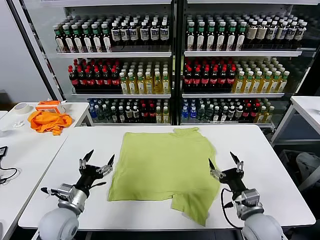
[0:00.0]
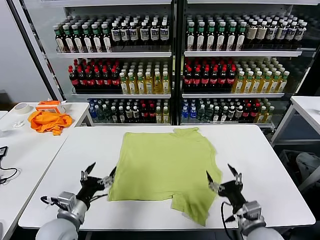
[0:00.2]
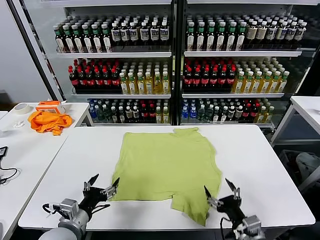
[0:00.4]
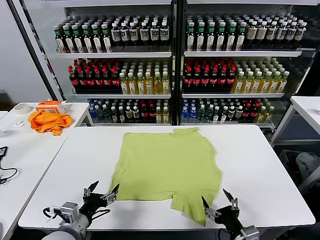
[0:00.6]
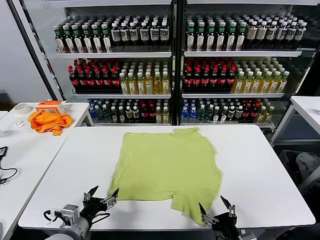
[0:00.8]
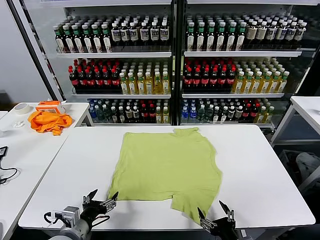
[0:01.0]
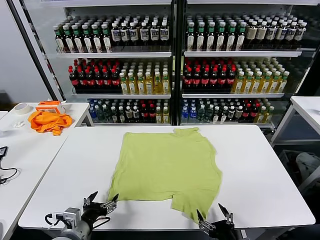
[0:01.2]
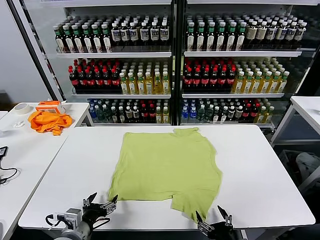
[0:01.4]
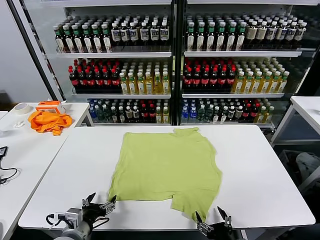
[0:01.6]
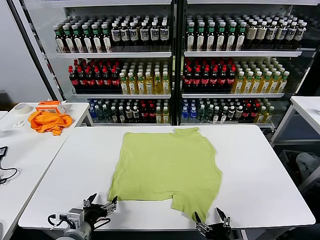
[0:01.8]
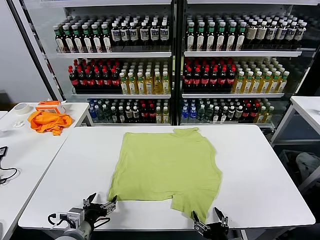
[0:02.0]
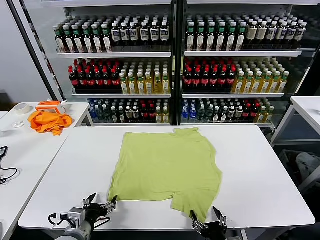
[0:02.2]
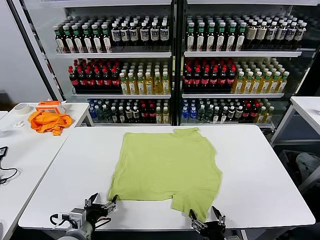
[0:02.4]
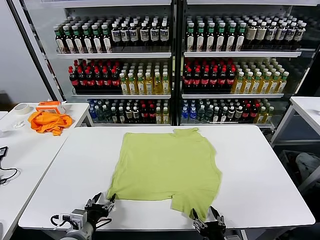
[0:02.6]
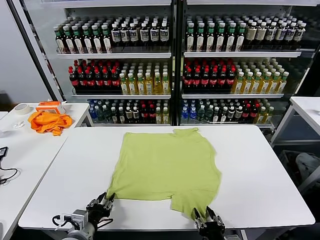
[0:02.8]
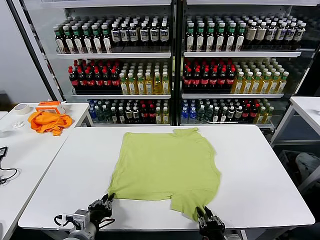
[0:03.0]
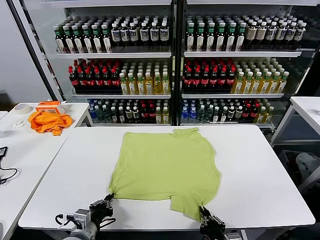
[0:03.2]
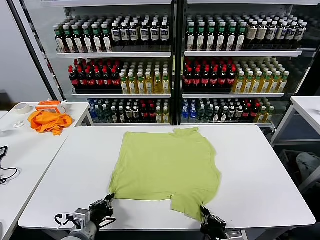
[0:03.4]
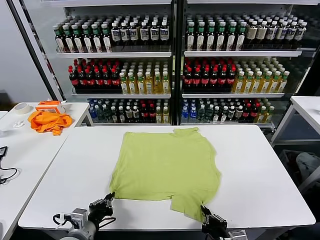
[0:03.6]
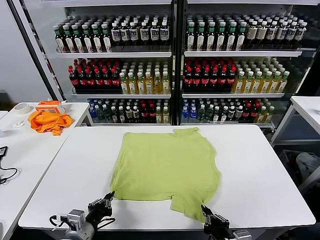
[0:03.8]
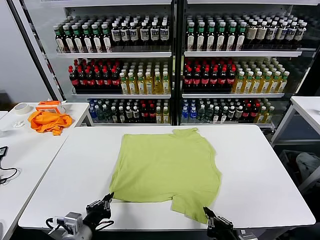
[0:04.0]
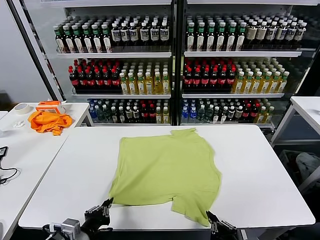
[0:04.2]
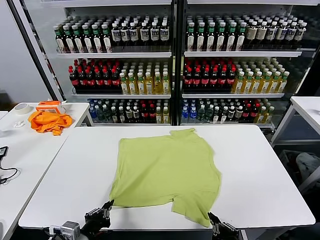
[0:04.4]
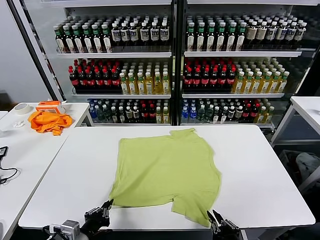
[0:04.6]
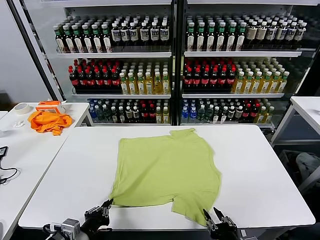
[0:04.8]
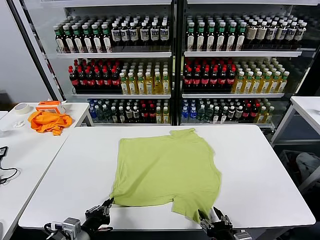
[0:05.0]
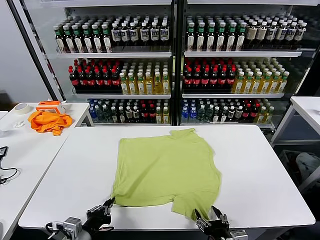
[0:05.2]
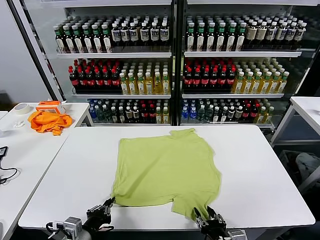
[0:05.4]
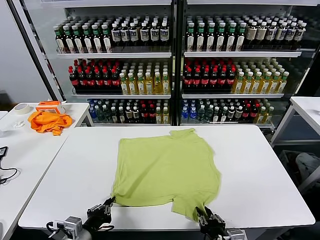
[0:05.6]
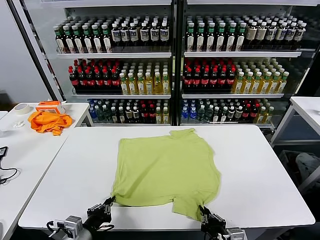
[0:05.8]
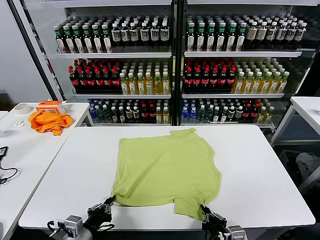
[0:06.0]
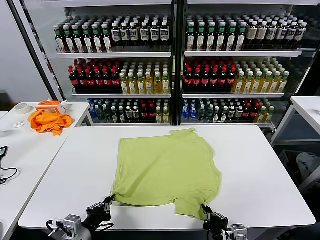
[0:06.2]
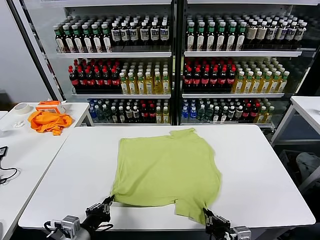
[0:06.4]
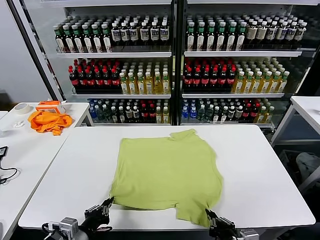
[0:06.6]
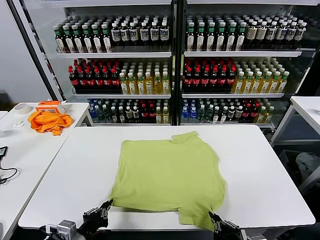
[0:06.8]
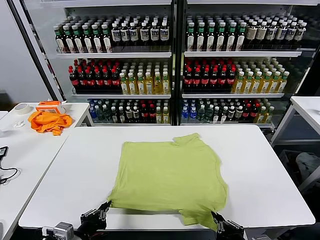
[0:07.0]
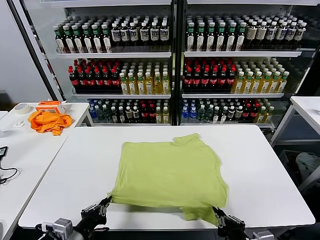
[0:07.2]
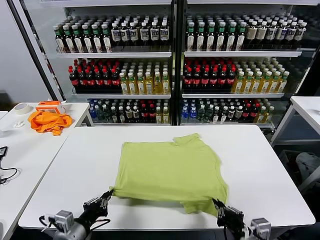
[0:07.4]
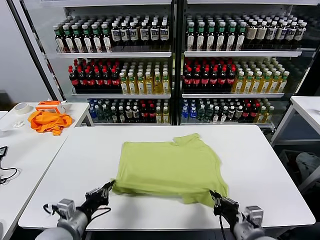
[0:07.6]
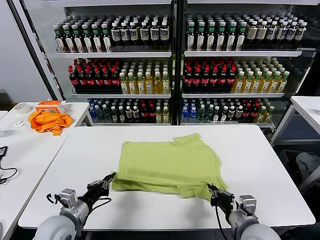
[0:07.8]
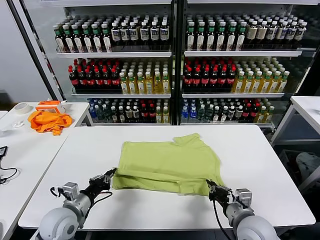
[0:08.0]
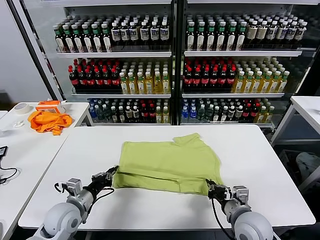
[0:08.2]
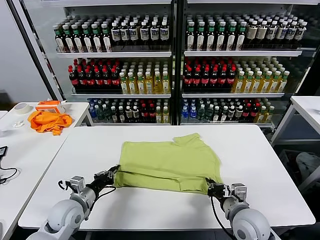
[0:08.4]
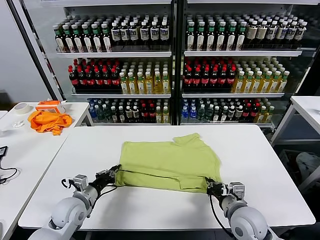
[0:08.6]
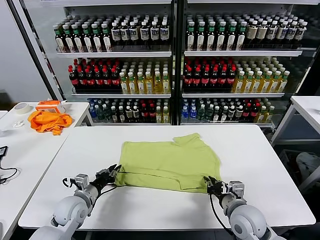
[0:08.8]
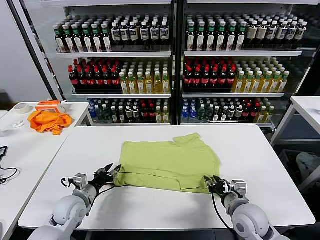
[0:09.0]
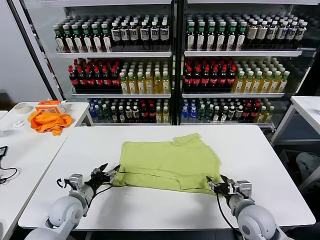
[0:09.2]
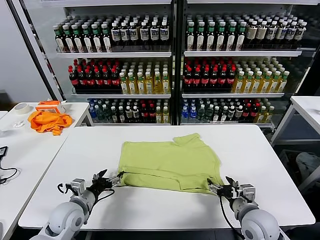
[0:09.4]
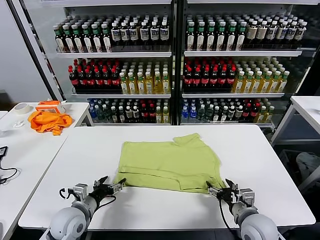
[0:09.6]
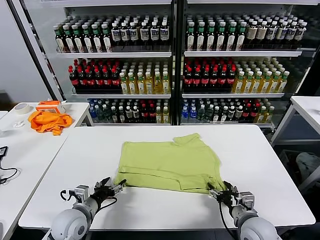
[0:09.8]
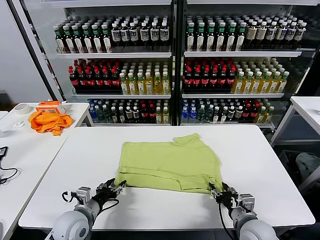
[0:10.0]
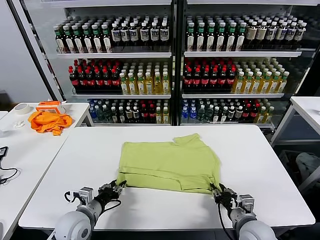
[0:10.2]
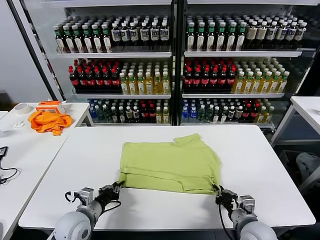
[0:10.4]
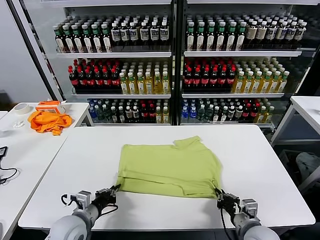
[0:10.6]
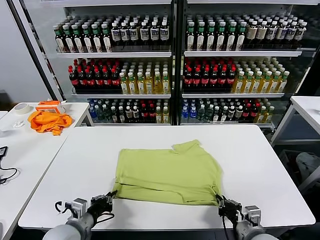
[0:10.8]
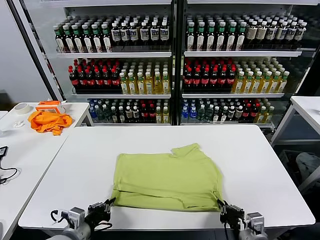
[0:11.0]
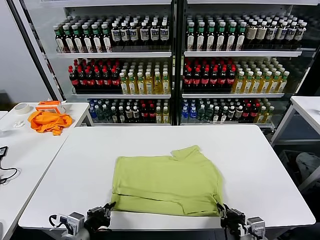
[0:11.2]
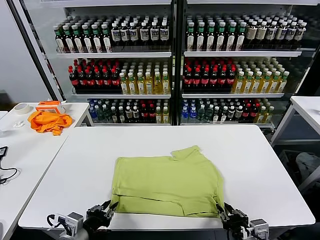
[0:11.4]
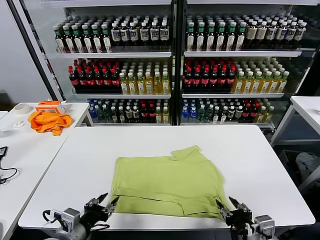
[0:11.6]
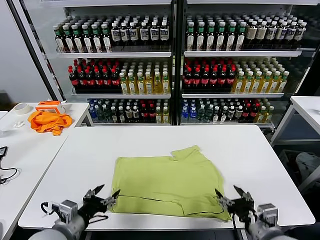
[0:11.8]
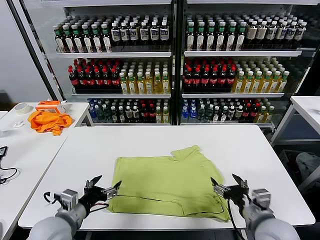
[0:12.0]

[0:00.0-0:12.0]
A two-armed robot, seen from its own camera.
Task of the whole recording: fold and organize the clothes.
Step, 0:00.0 to 0:03.0: use both grippers simultaneously to clamp the lower edge of the clothing fabric.
Step, 0:03.2 to 0:09.0: use both grippers to drag the lower edge of the fabric forward and fold it over the upper edge.
Step, 0:09.2 to 0:11.4: Drag the clothes downward with both gripper.
0:01.6 to 0:03.0: The right gripper closes its fingers; the left gripper closes.
0:03.0 to 0:04.4: The left gripper moves about 5 cm; the right gripper moves upward, about 5 cm.
0:04.4 to 0:06.0: The right gripper ends up roughly 5 cm from where it was, and opens and closes again.
0:06.0 to 0:07.6: The left gripper shifts approximately 5 cm forward. The right gripper travels upward and forward by some 10 cm.
0:07.6 to 0:09.0: The left gripper heads forward and downward, covering some 10 cm, and opens up, while the right gripper goes some 5 cm forward, and opens up.
0:09.0 to 0:10.4: The left gripper heads backward, covering approximately 5 cm, and closes up; the right gripper changes place by approximately 5 cm, and closes.
0:10.4 to 0:12.0: The two grippers go roughly 5 cm upward. The left gripper travels backward and back again, some 10 cm each way, and opens. Meanwhile the right gripper opens up.

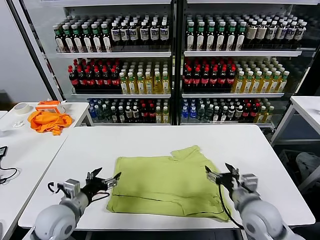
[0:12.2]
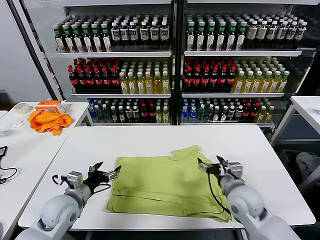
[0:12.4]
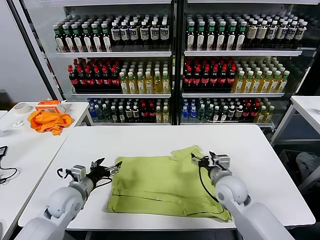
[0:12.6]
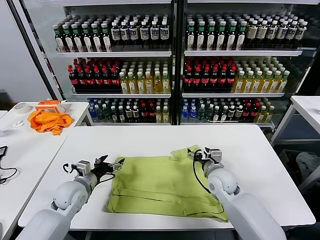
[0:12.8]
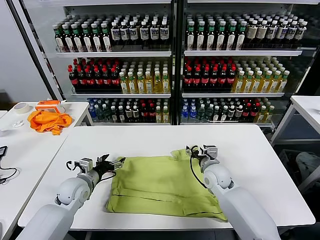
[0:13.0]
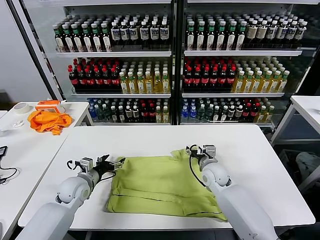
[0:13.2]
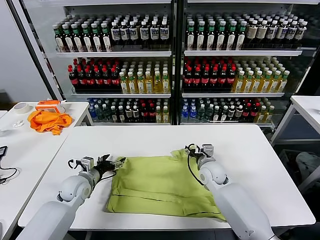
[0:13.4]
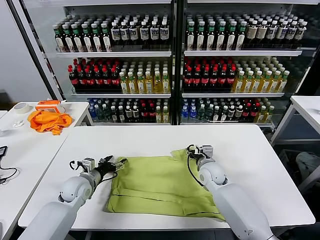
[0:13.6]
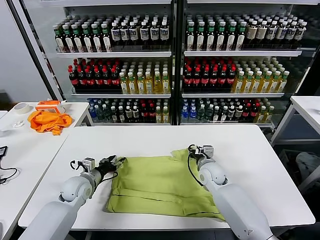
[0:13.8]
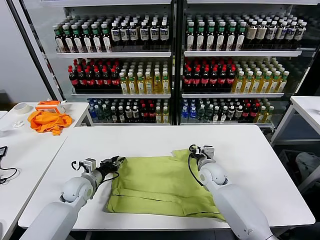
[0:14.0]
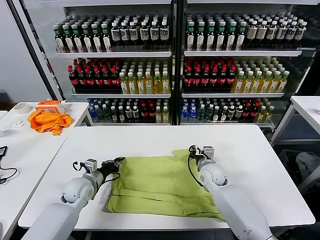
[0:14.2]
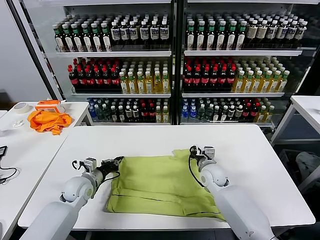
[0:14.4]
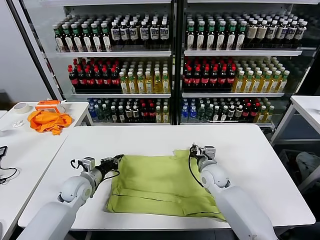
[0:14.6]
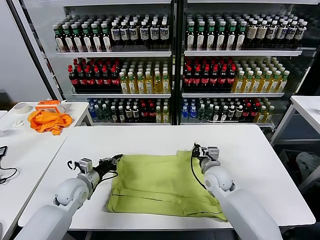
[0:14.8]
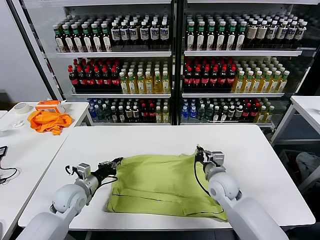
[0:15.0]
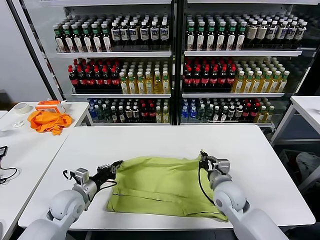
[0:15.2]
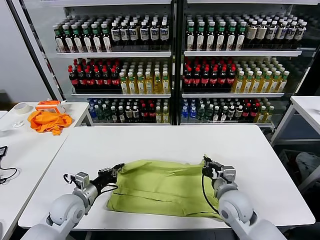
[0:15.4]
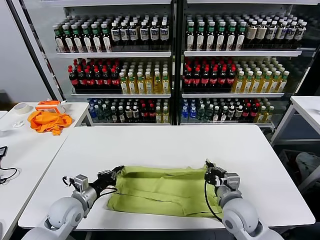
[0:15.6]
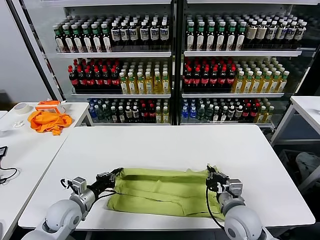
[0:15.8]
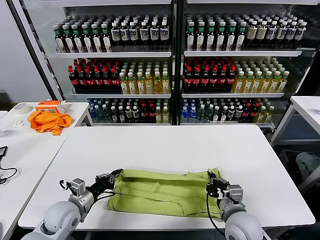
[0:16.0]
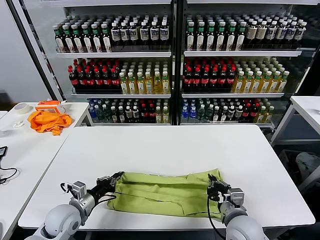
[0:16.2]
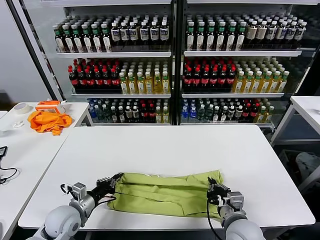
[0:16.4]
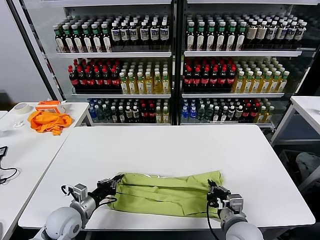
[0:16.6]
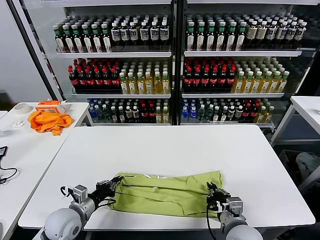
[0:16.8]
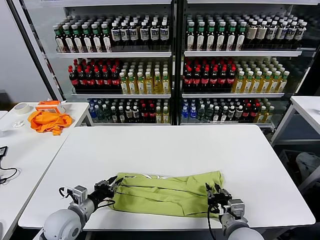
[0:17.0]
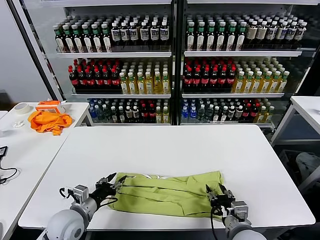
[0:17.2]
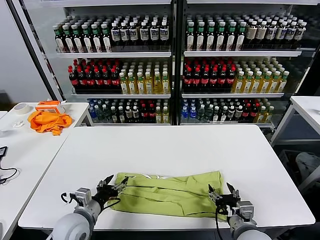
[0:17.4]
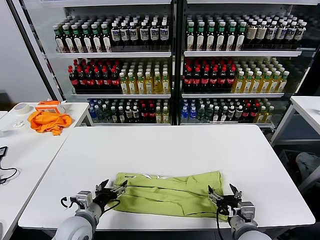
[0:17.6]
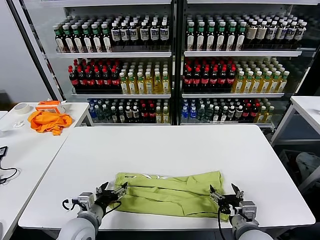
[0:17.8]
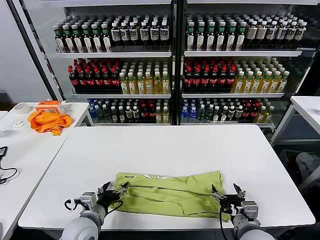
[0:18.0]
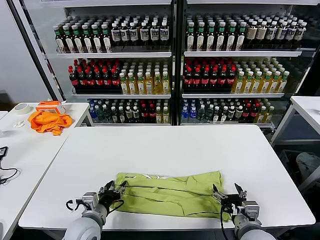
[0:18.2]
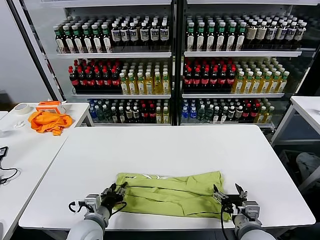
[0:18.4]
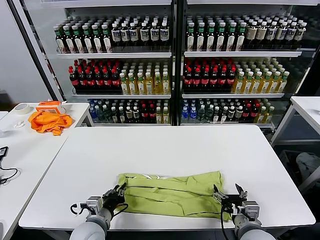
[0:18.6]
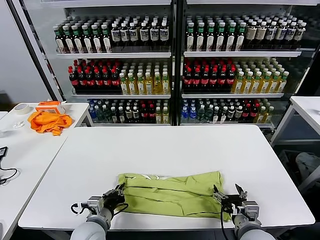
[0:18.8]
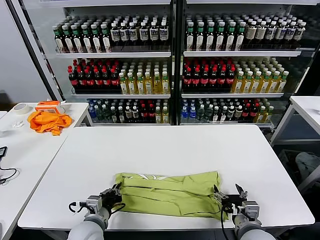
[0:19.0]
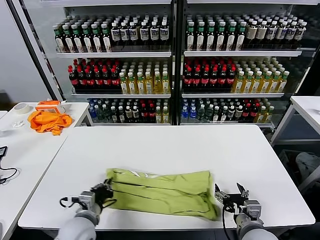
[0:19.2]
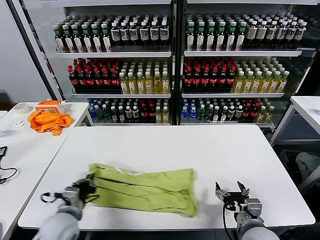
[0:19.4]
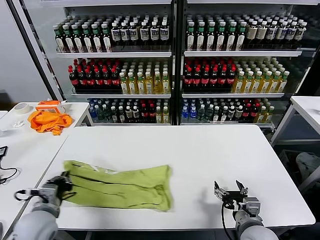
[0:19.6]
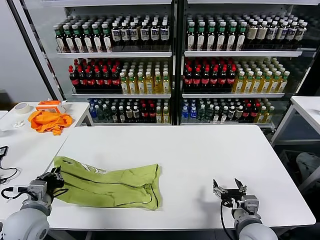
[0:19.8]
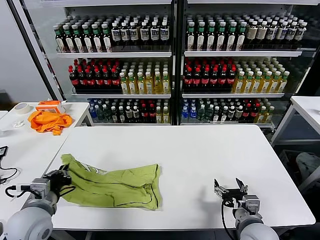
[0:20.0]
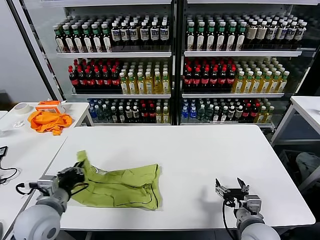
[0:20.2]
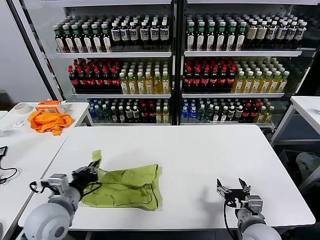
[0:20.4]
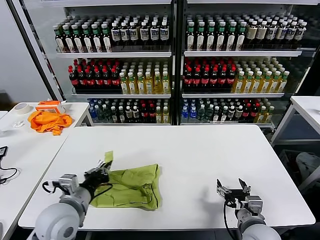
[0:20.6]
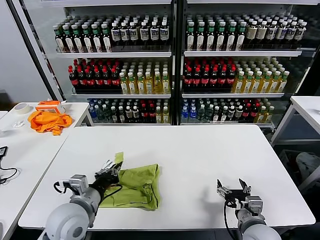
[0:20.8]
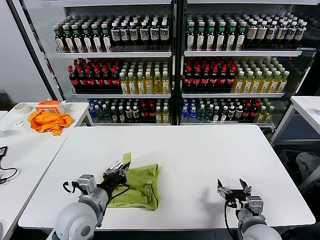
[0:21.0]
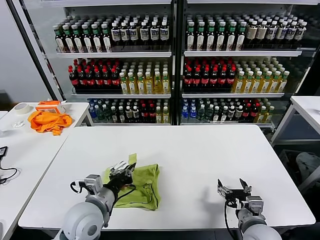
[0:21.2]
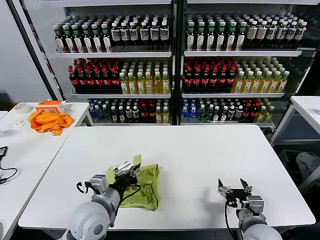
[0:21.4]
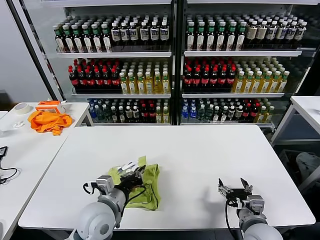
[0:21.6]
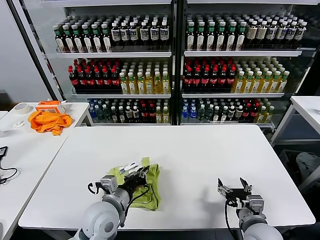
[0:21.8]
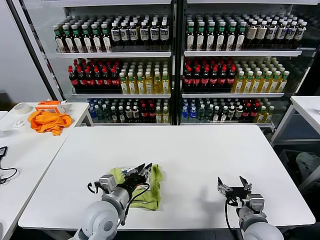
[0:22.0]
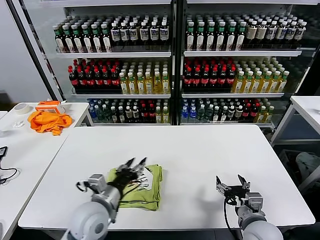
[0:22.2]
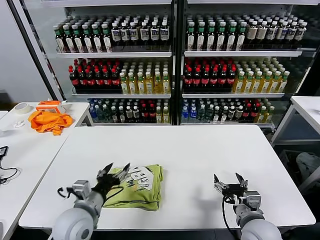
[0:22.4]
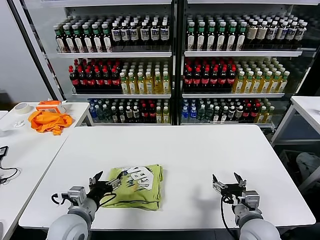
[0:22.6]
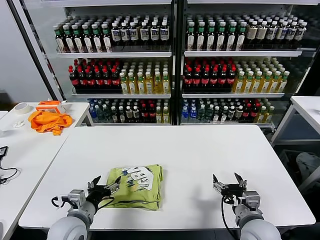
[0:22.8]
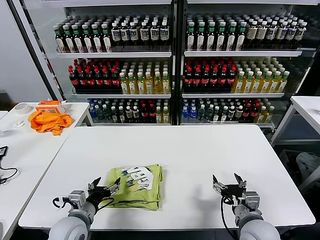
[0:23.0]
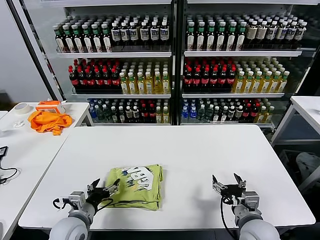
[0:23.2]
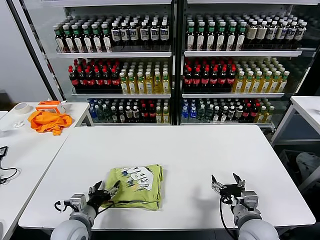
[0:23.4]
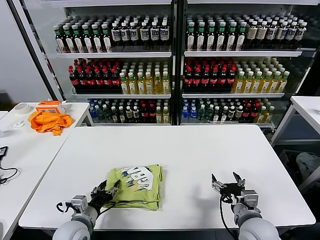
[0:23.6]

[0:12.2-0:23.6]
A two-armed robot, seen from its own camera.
Task of the whole recording: fold and organize the clothes.
Step, 0:12.2 to 0:14.2: use both grippers simultaneously to clamp the upper edge of the clothing fabric.
Step, 0:14.4 to 0:17.2: use both grippers to drag the upper edge of the fabric backward and fold it over the lower edge.
Step, 0:17.4 to 0:18.6: use the left gripper to clamp the left edge of the fabric.
Step, 0:18.8 to 0:22.0: use the left gripper to drag the left edge of the fabric to the left and folds it over the right edge.
0:12.2 to 0:13.6: The right gripper travels forward, downward and to the left by roughly 20 cm. Meanwhile the left gripper moves forward and downward, about 15 cm.
0:13.6 to 0:15.0: The left gripper closes its fingers, while the right gripper goes roughly 10 cm backward, and closes.
0:15.0 to 0:16.4: The right gripper shifts roughly 15 cm backward. The left gripper travels backward by about 5 cm.
0:16.4 to 0:17.8: The right gripper opens. The left gripper is displaced to the right by some 5 cm, and opens up.
0:17.8 to 0:19.4: The left gripper closes.
0:19.4 to 0:20.8: The left gripper is displaced upward by about 5 cm.
0:20.8 to 0:22.2: The left gripper travels to the right by roughly 5 cm, and opens its fingers.
0:22.2 to 0:23.6: The left gripper heads downward and to the left, covering some 15 cm.
